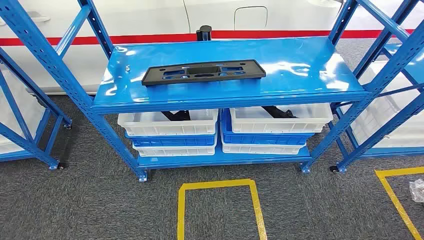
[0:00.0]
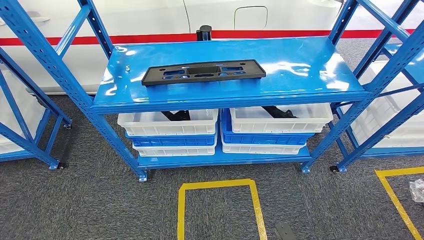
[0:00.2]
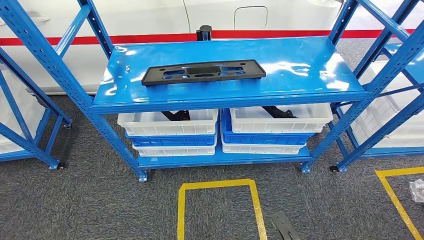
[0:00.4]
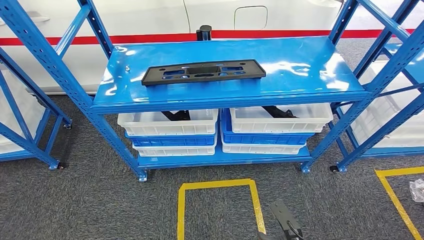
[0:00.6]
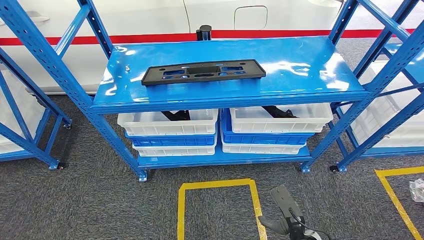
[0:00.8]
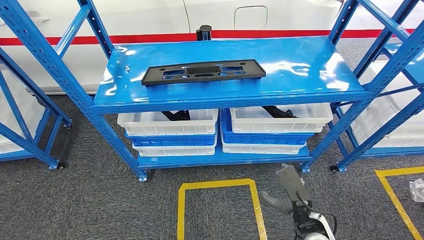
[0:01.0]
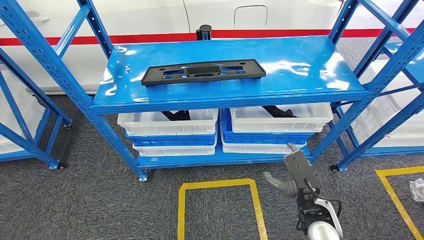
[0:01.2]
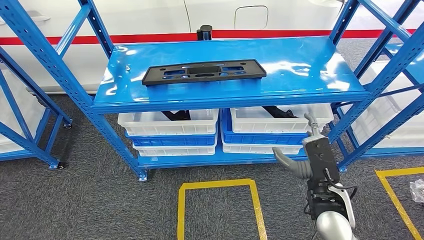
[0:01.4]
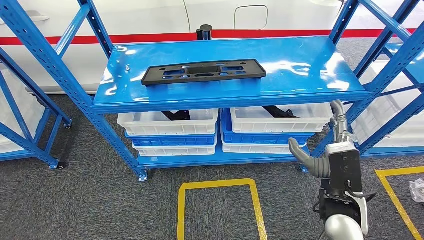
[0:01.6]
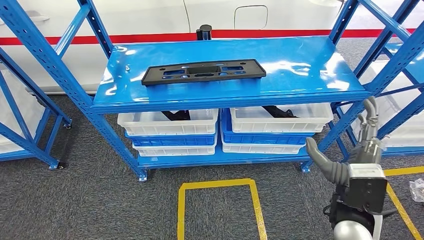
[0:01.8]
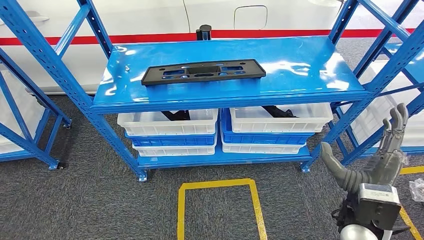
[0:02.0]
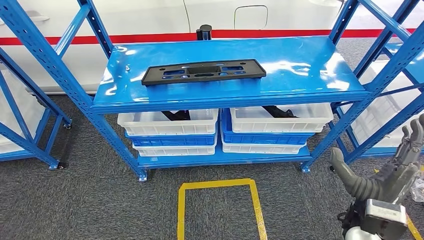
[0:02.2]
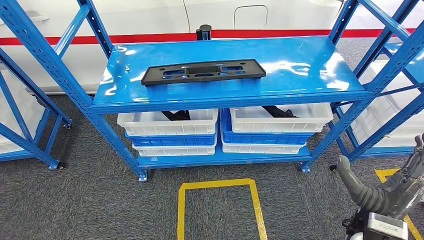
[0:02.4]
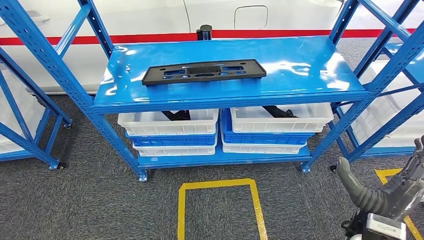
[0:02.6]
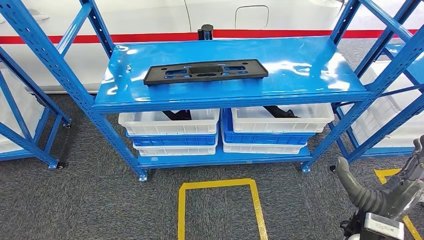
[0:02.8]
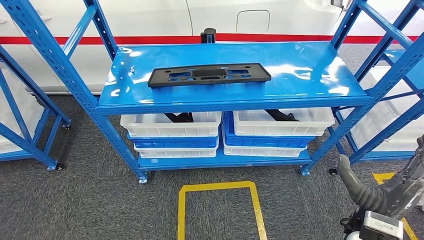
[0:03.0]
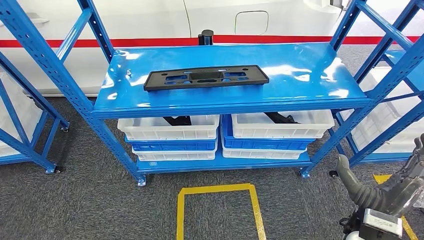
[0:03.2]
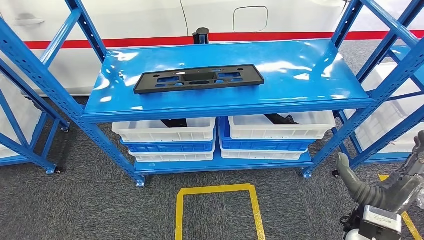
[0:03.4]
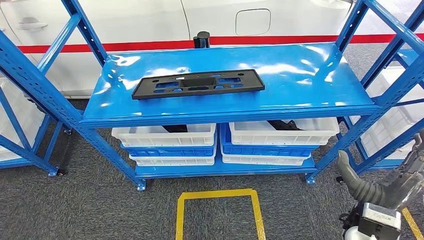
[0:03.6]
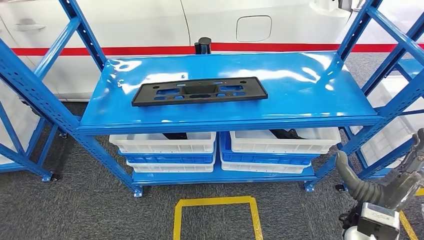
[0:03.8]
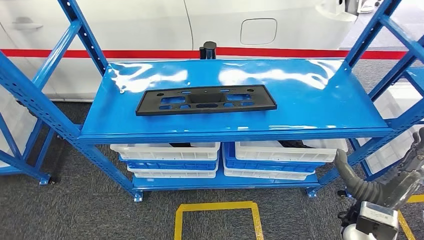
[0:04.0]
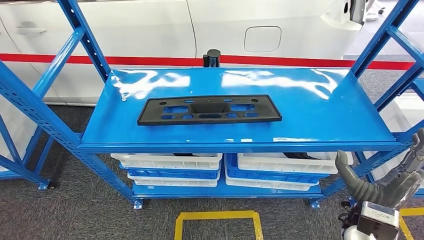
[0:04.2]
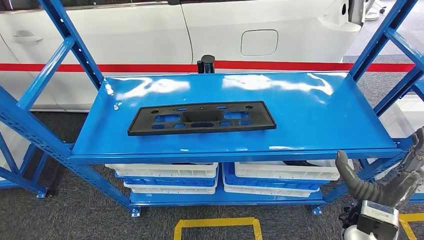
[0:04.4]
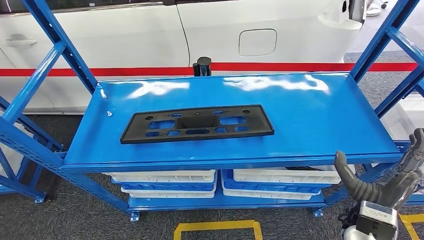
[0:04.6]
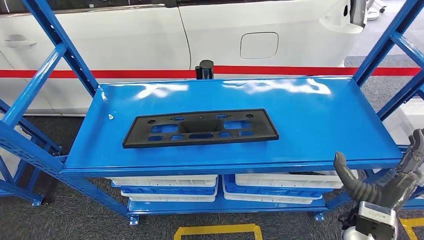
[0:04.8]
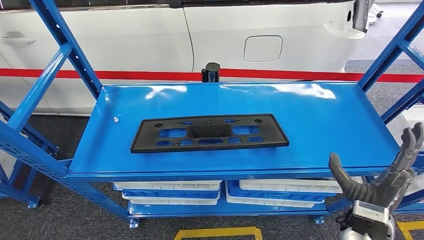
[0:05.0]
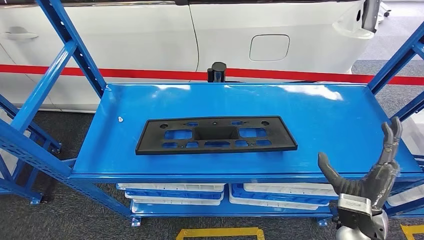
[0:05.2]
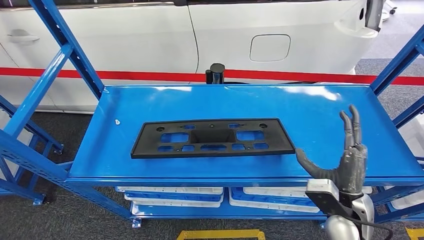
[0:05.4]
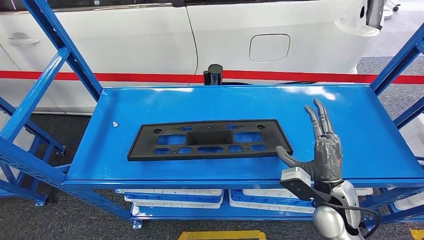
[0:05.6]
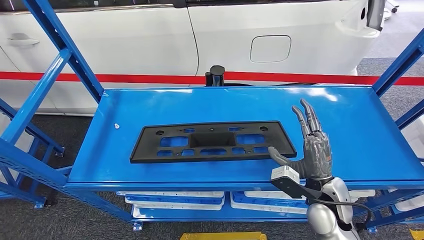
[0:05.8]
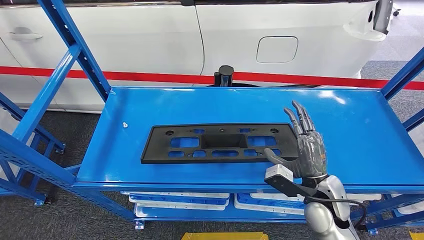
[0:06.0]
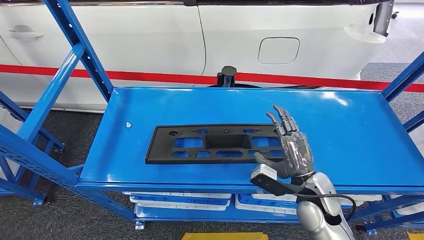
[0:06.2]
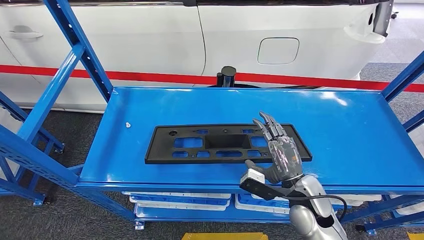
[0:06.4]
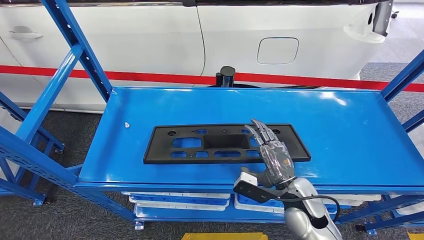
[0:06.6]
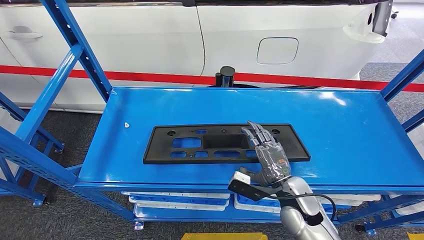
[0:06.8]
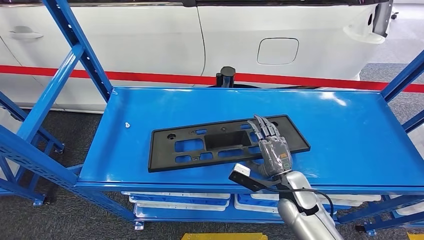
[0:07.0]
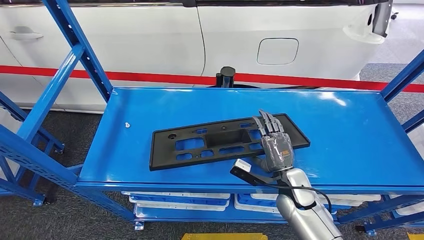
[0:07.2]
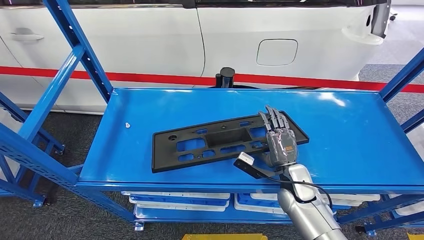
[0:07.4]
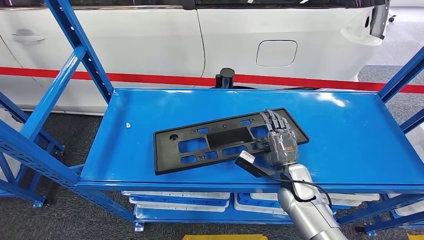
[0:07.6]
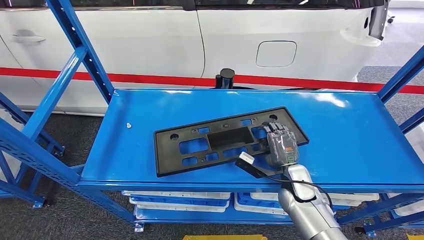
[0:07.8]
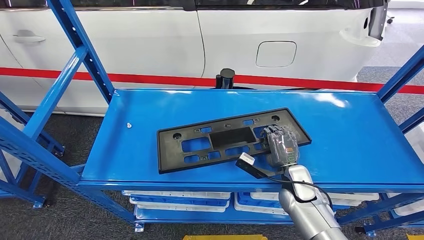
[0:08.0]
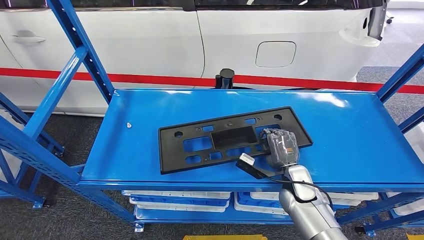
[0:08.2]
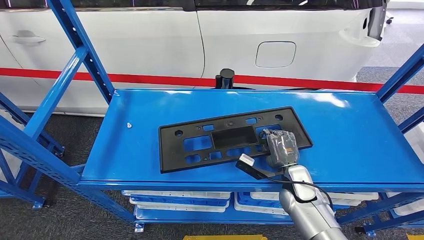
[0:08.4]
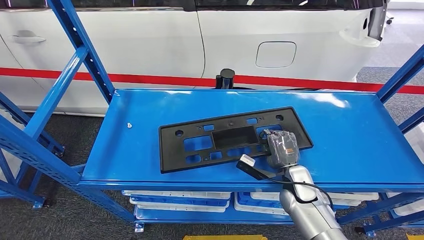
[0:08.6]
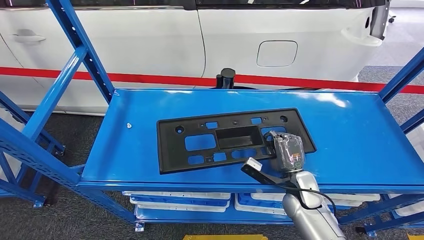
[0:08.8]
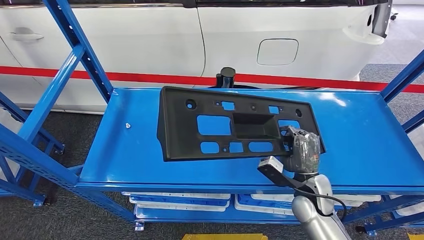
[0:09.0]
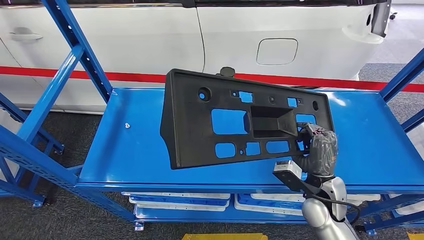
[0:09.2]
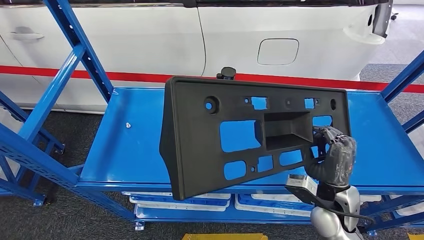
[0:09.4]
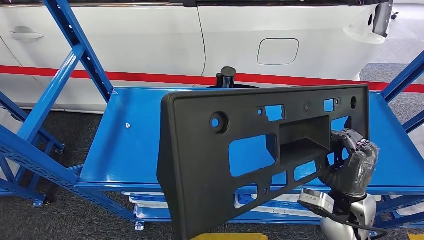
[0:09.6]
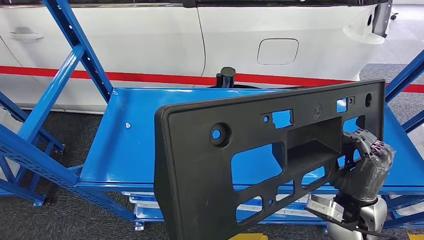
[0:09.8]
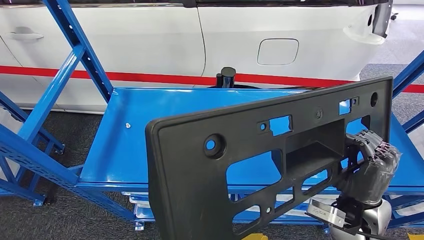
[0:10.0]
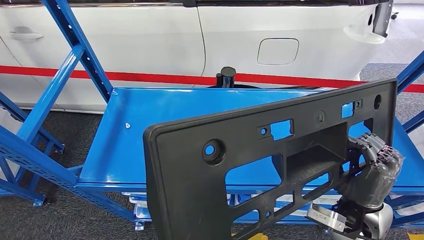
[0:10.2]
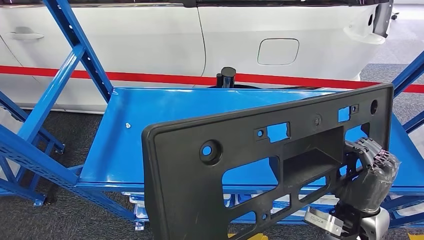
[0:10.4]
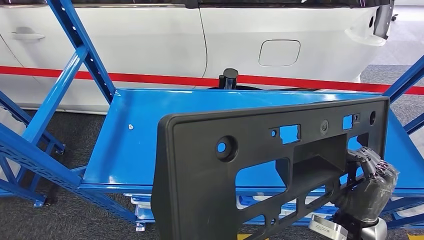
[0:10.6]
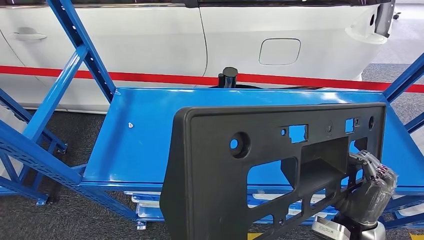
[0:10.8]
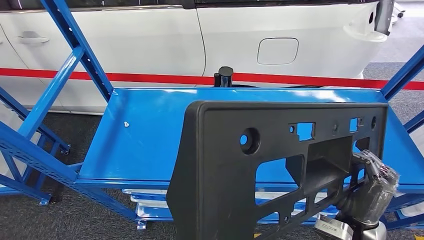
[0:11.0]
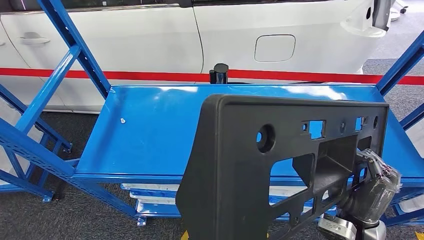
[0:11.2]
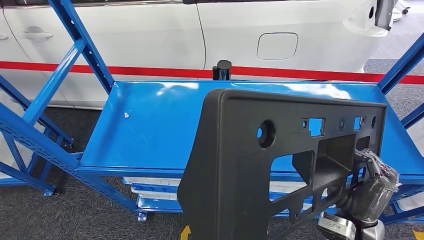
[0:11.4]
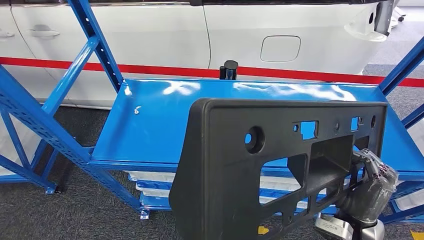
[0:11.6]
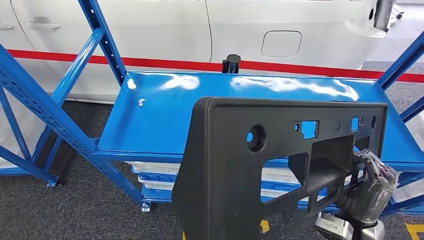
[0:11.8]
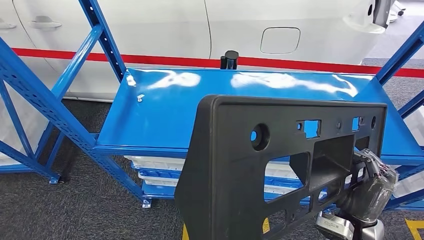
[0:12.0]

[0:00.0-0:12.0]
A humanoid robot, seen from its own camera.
Step, 0:00.0 to 0:08.6: Pick up the large material from the shelf.

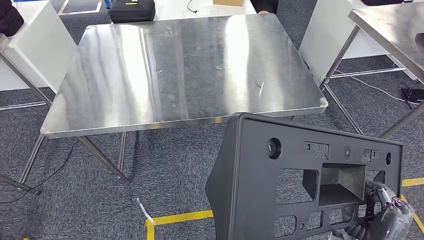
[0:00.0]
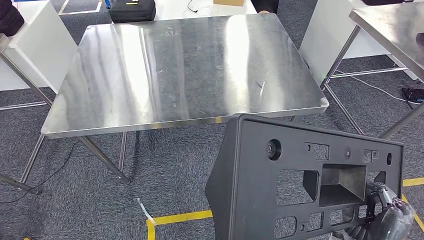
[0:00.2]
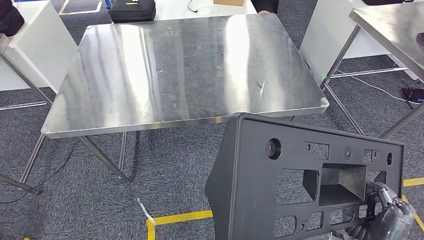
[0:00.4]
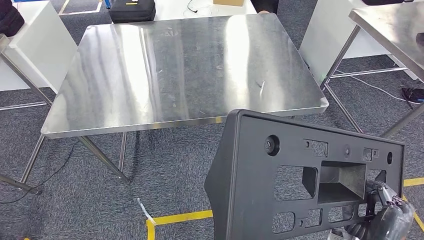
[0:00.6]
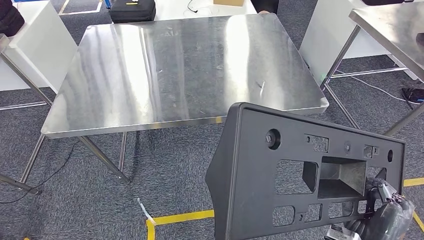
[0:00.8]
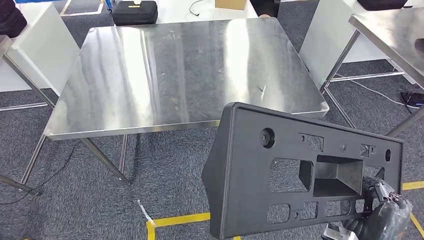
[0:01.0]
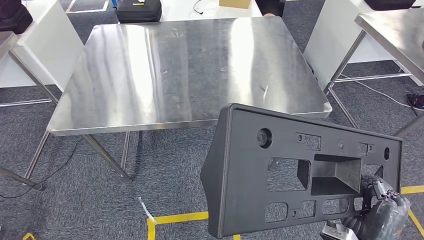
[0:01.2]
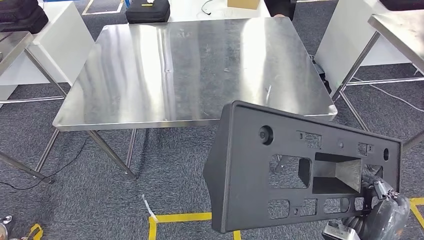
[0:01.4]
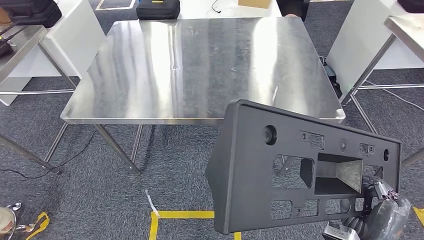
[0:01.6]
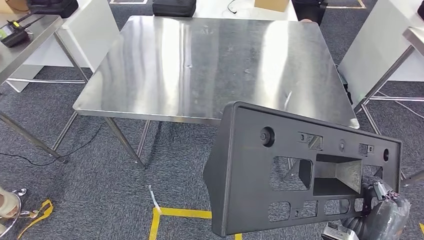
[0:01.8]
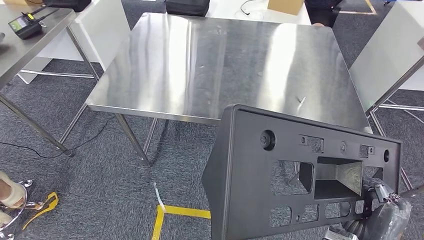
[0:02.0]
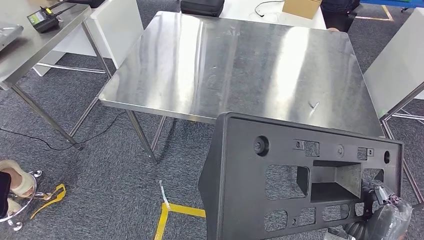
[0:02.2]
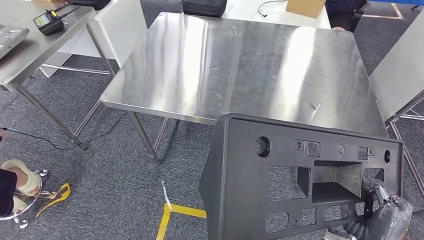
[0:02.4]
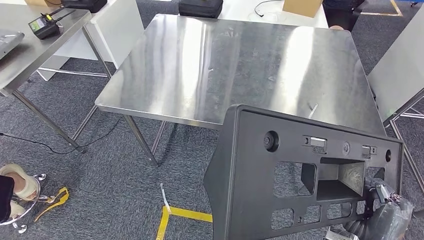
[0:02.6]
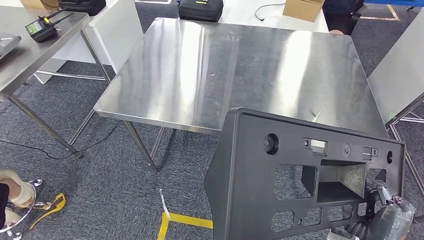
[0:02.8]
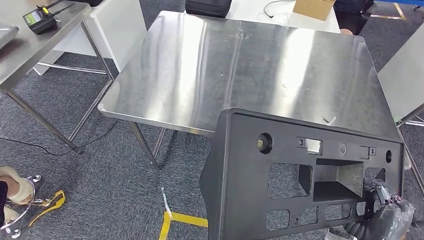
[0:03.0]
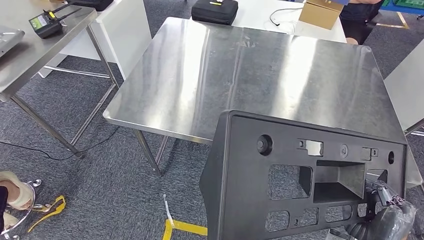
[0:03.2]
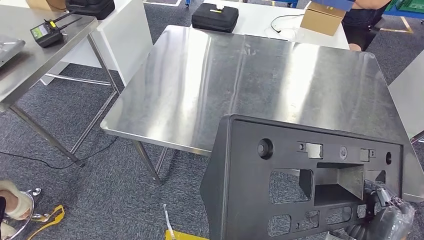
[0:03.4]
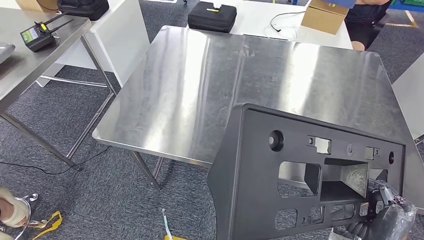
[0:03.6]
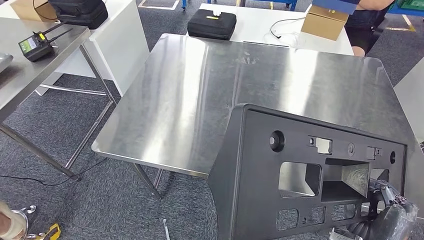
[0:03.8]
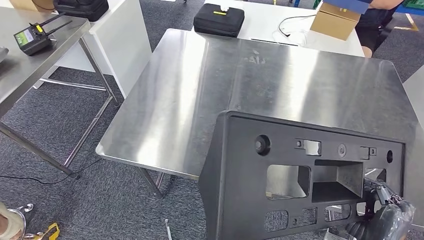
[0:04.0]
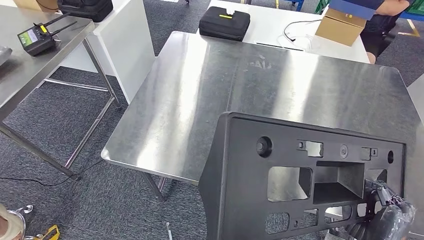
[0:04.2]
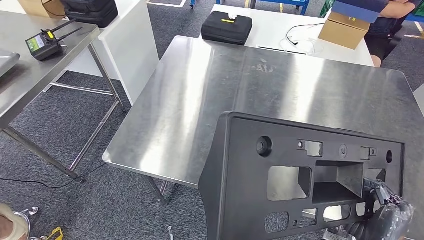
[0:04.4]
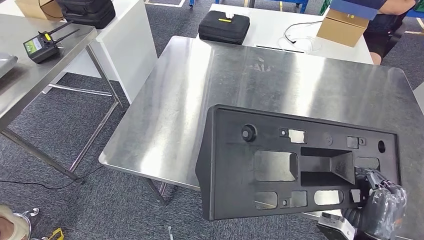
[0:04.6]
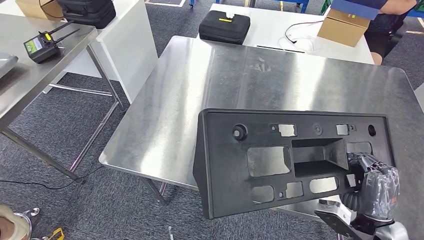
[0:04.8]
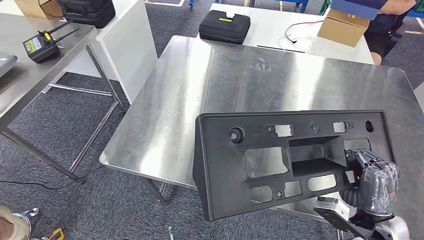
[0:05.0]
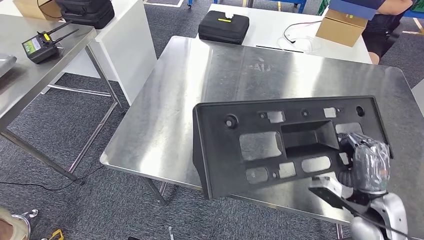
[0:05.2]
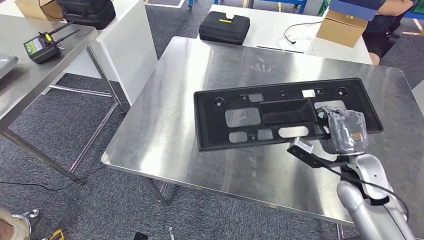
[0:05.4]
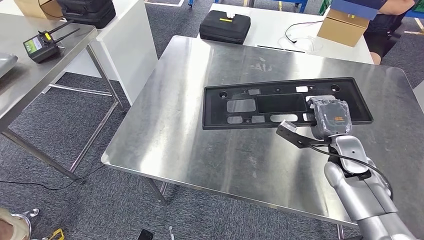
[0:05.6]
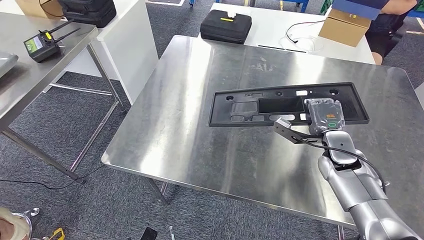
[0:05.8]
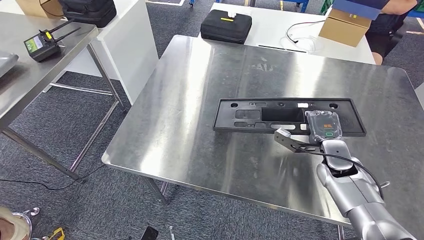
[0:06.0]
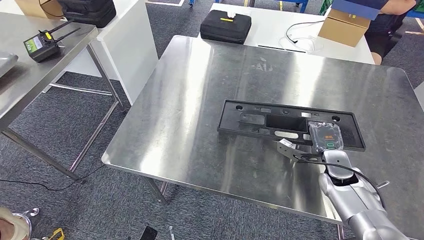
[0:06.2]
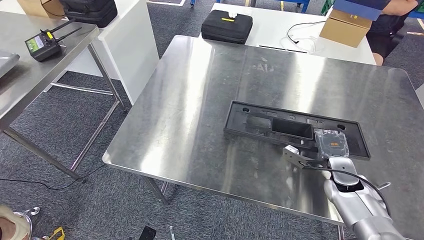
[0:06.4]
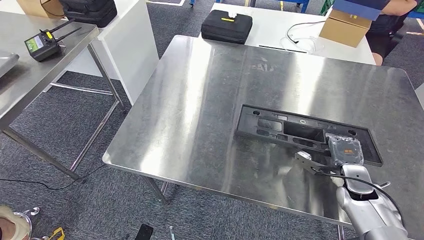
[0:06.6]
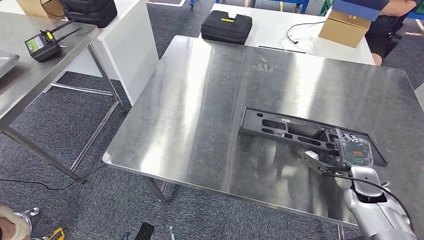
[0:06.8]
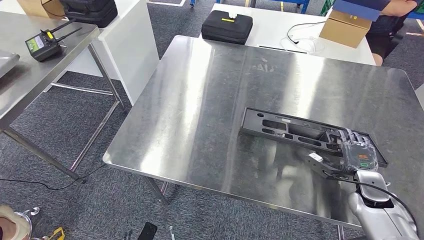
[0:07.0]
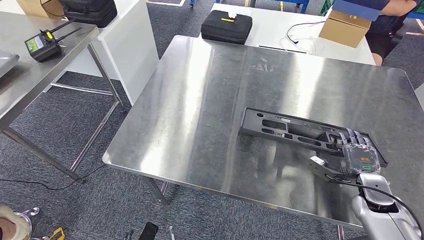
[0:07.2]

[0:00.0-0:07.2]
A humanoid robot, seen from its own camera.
Step, 0:00.0 to 0:04.0: Move the large material to the workbench.
0:05.8 to 0:07.2: The right hand is displaced backward, to the right and downward by approximately 15 cm.
